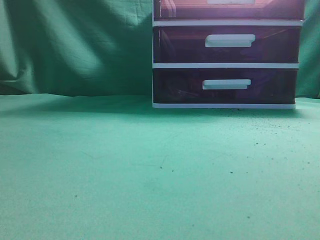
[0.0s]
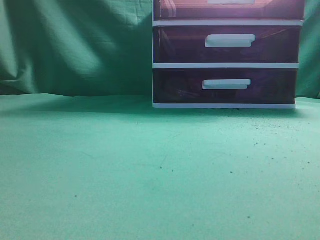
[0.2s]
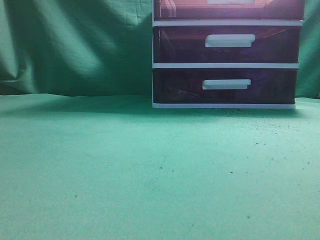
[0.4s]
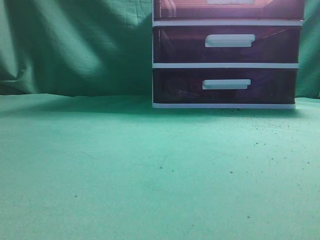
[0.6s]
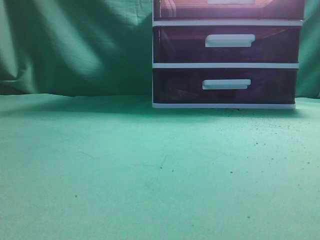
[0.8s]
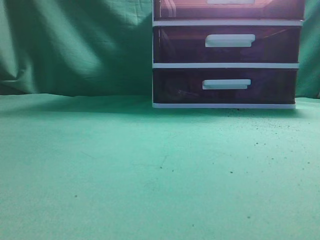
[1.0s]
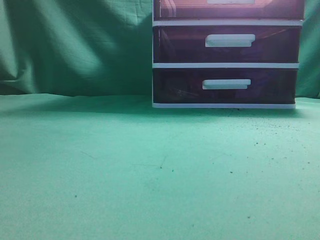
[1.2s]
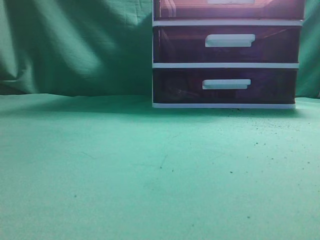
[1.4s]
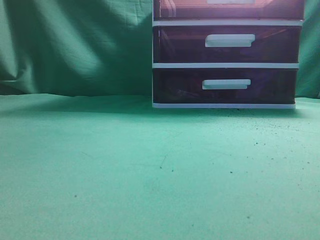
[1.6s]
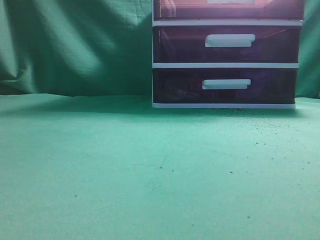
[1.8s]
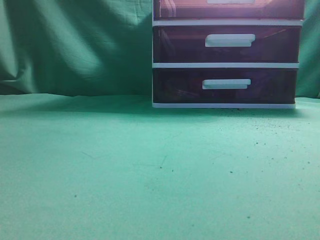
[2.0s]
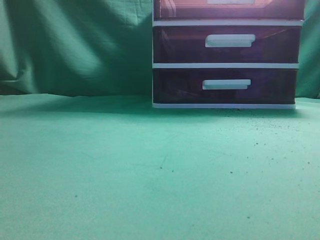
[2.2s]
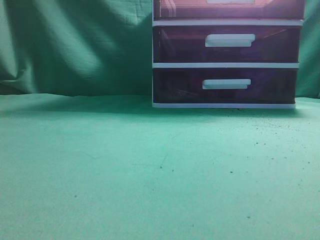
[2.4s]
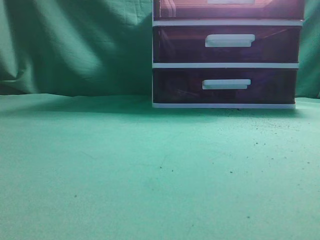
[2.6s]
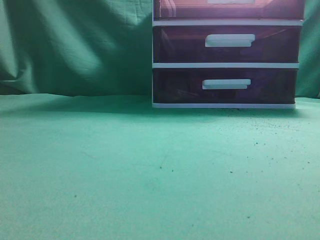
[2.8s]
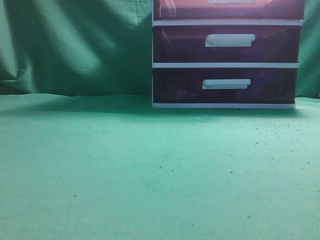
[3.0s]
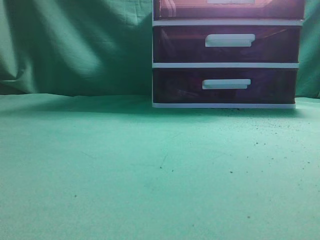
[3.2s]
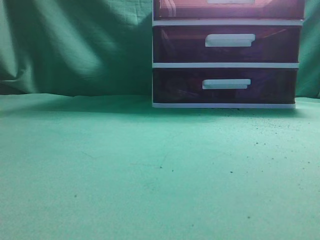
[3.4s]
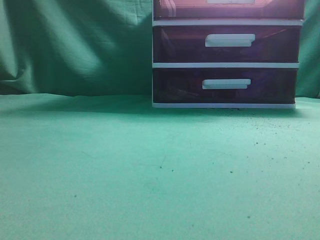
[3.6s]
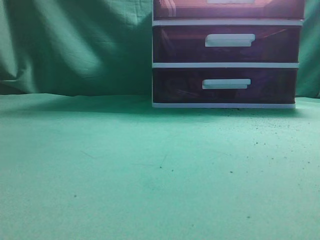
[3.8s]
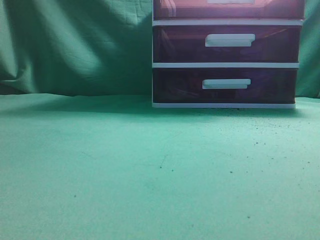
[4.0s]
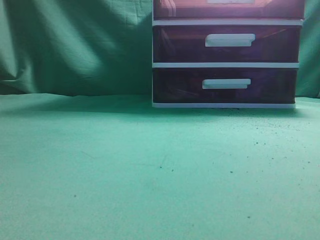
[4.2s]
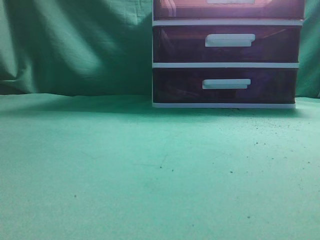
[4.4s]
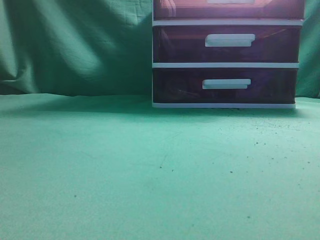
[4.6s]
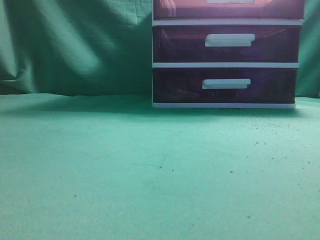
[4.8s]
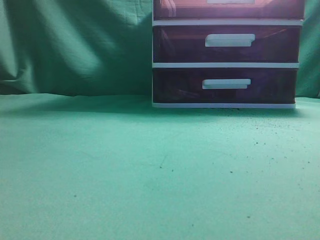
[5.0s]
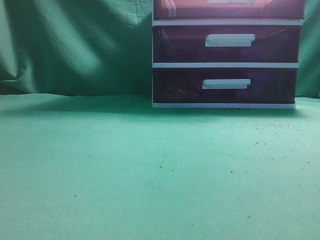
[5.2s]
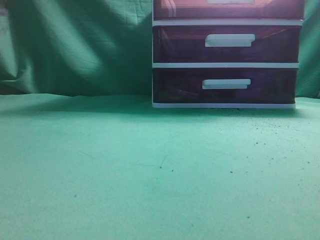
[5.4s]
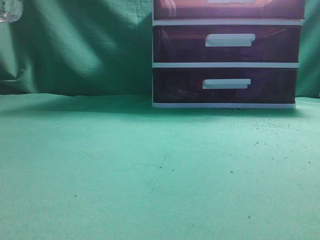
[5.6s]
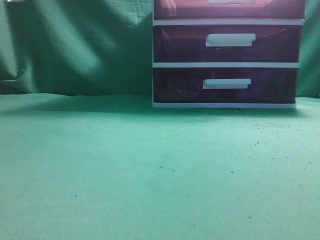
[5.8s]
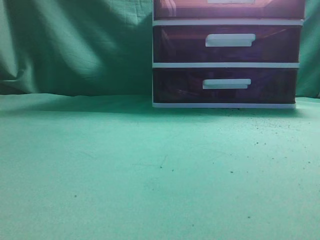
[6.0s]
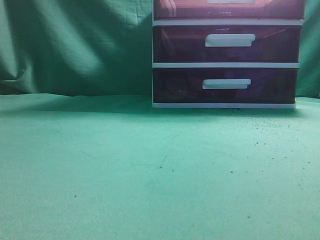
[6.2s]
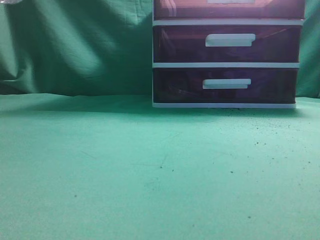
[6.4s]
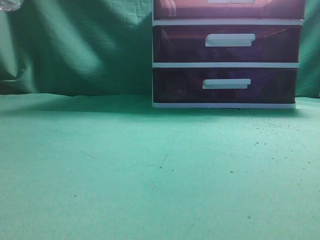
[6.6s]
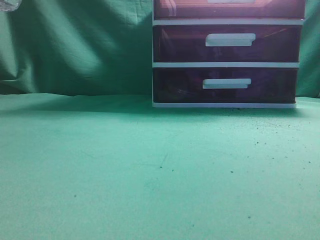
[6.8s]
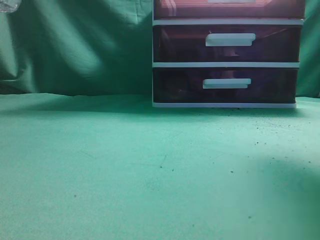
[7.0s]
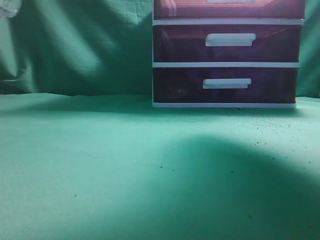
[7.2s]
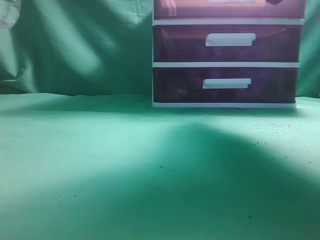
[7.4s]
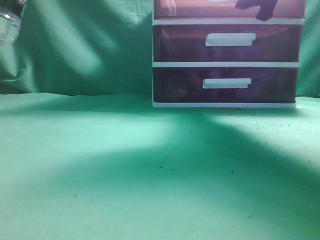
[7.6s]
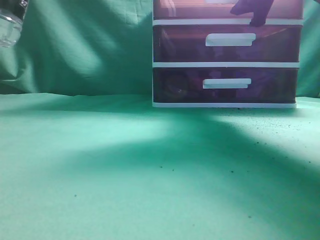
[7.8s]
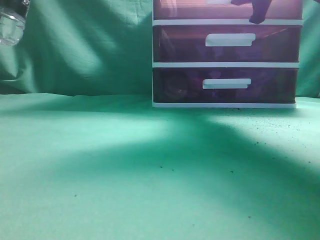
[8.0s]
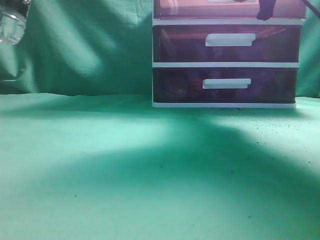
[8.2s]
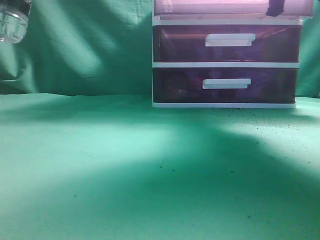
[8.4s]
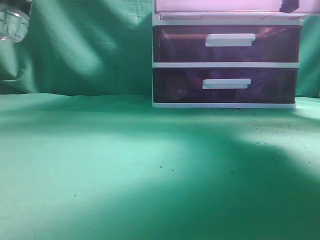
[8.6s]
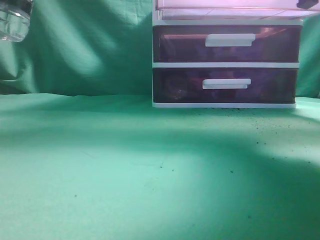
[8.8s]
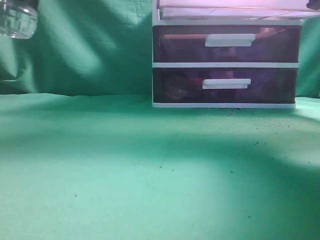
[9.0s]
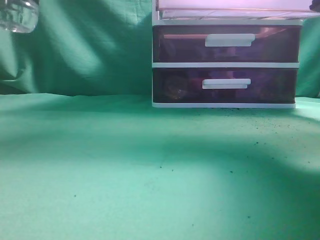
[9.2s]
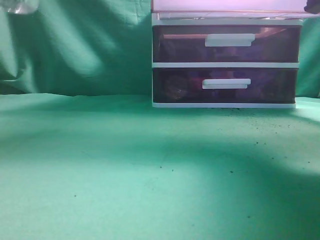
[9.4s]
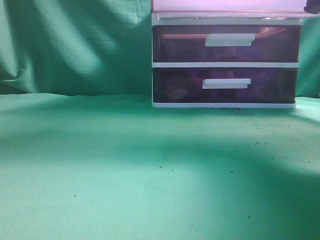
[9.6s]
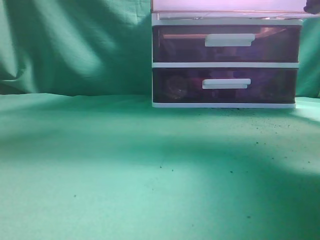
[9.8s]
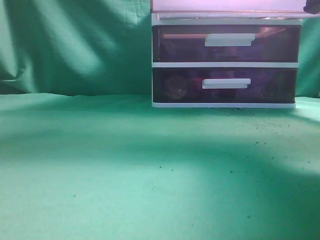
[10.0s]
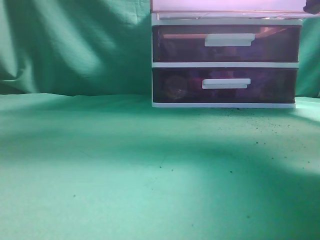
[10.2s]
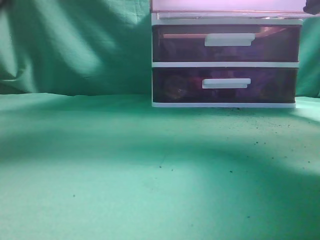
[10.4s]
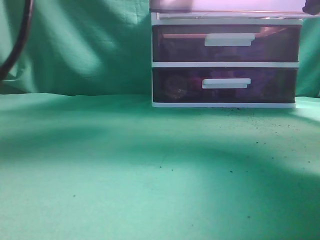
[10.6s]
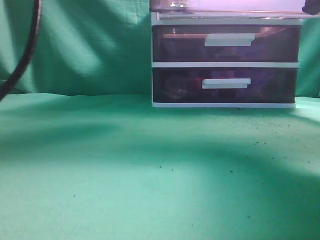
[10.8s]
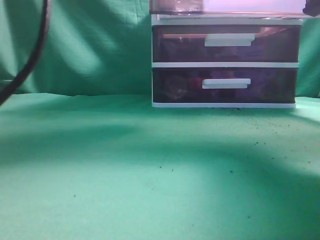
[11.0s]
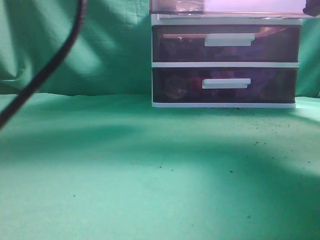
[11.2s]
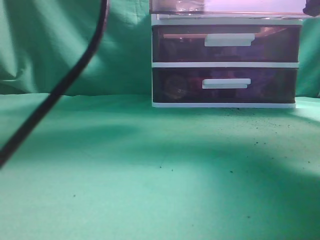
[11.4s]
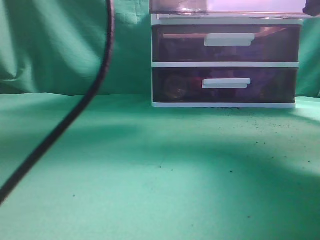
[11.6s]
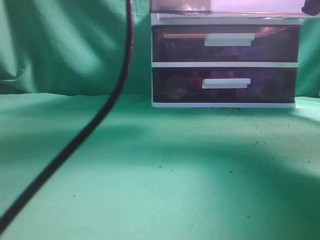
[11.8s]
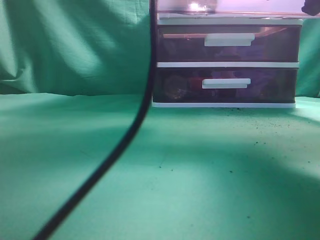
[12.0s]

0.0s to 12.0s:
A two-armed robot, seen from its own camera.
Task of the whole recording: place the water bottle into the drawer.
Step, 0.0s to 9.0s: Open the drawer.
6.0s to 7.6s: The left gripper shifts by roughly 5 cm. Meanwhile the right gripper heads forward, covering roughly 35 cm, and opens.
7.6s to 9.0s: The right gripper moves backward, about 10 cm, and closes its fingers.
9.0s to 10.4s: The left gripper shifts about 20 cm to the right, forward and upward.
10.4s to 12.0s: The left gripper shifts roughly 10 cm to the right and downward, and opens its fingers.

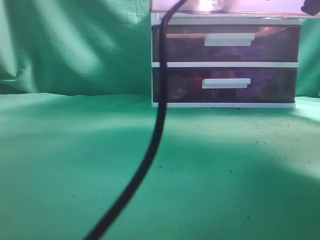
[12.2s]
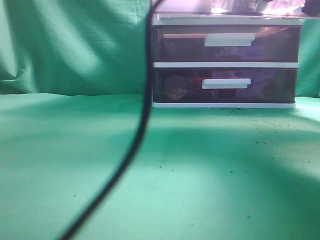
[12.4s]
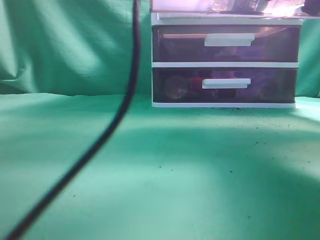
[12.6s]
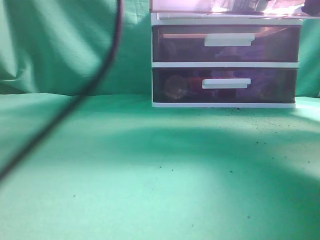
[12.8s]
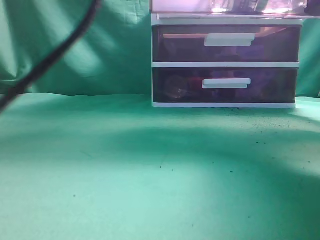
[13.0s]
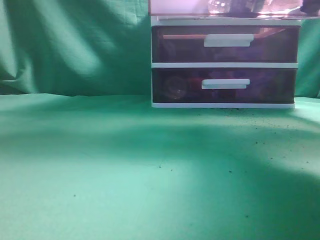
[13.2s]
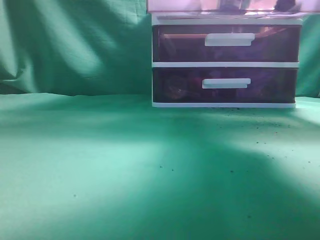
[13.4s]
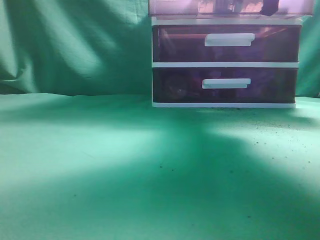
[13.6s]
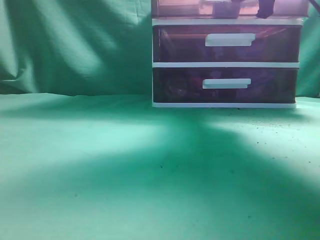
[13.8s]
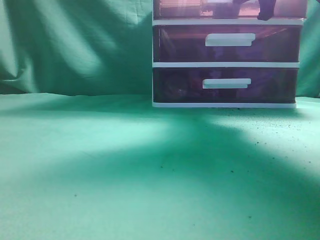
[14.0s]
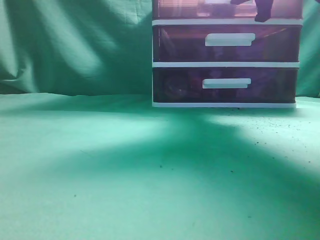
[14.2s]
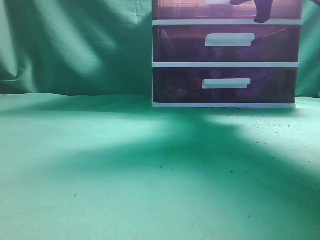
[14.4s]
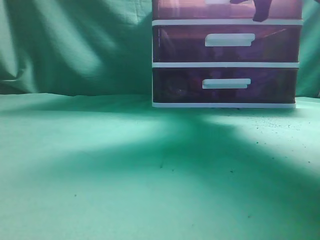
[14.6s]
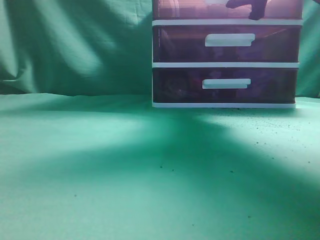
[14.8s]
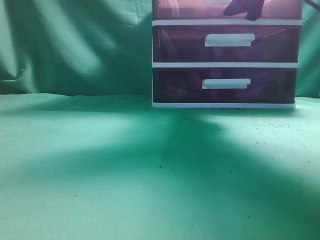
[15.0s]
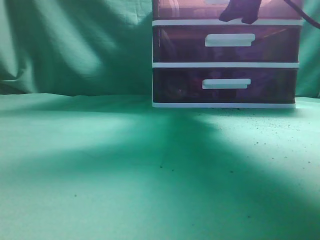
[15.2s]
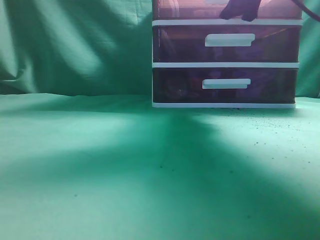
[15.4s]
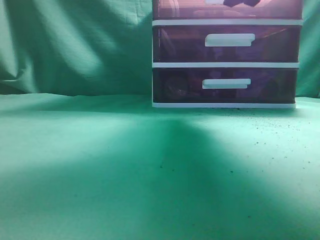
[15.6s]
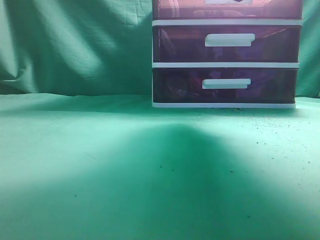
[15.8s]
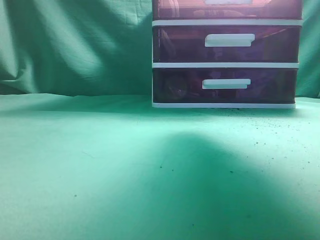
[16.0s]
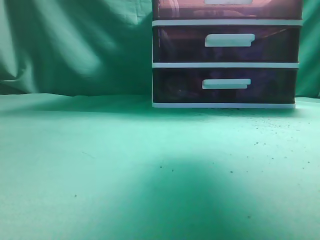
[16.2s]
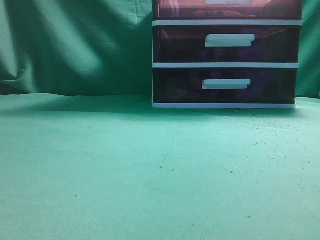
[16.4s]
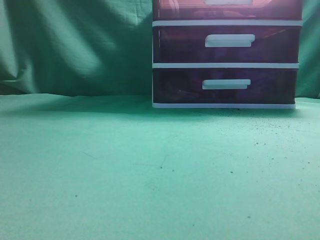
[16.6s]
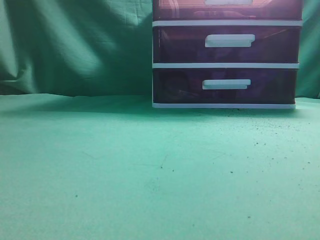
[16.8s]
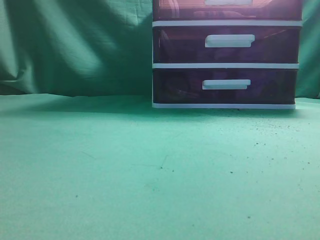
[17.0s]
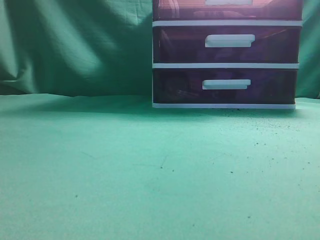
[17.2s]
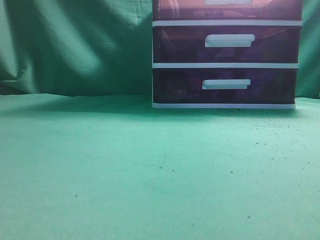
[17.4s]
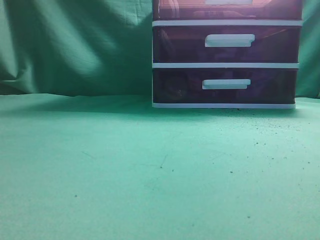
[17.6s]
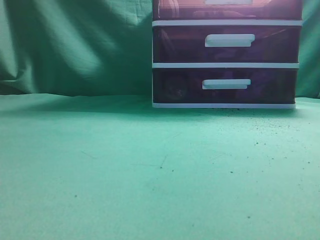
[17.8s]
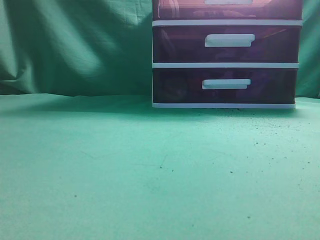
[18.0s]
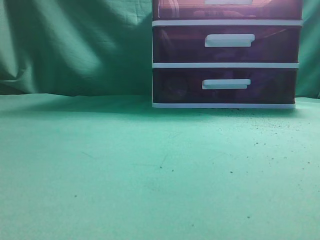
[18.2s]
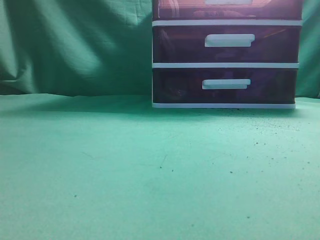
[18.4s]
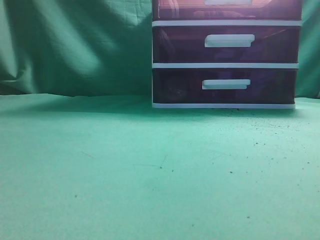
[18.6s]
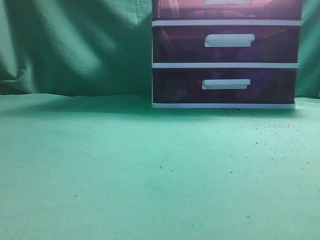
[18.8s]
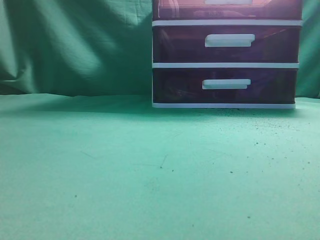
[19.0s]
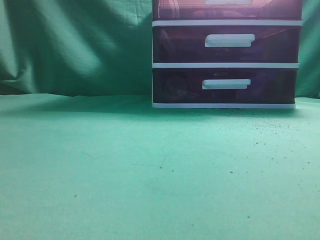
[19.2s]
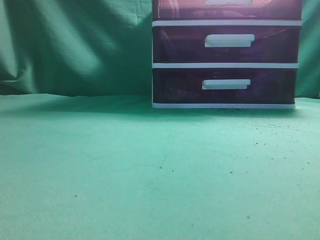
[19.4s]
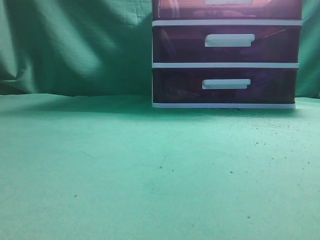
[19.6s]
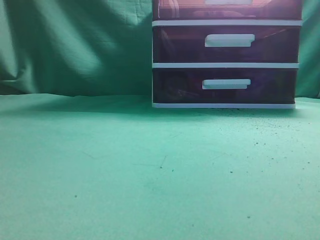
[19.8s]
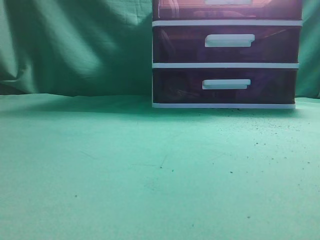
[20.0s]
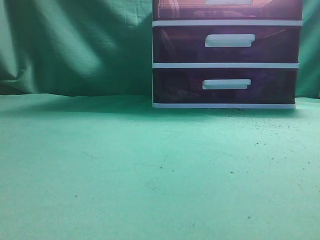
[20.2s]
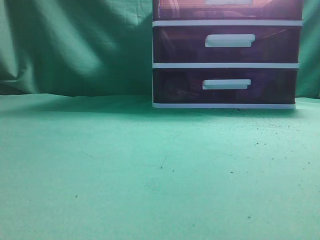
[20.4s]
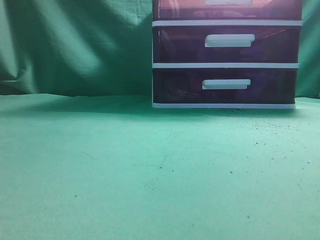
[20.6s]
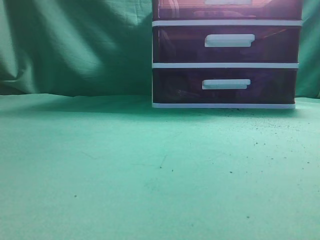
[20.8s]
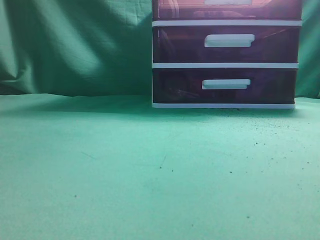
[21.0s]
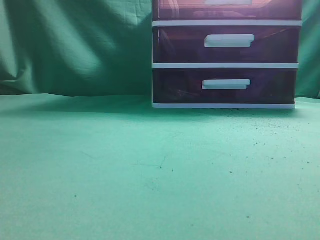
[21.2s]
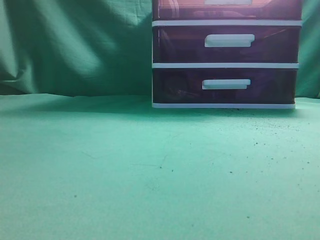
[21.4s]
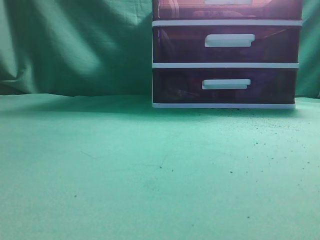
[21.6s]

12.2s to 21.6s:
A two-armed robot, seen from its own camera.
Task of the whole recording: place the water bottle into the drawer.
Step, 13.2s to 15.8s: Close the drawer.
12.2s to 13.8s: The right gripper heads forward, covering approximately 15 cm. The left gripper shifts some 35 cm to the left, backward and upward, and closes up.
13.8s to 15.4s: The right gripper opens its fingers.
15.4s to 17.0s: The left gripper is displaced backward, downward and to the left by approximately 25 cm. The right gripper goes some 35 cm backward, and closes.

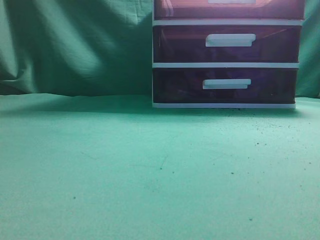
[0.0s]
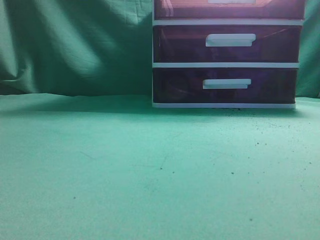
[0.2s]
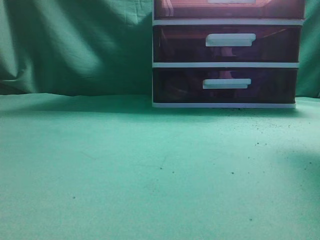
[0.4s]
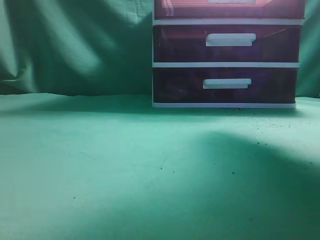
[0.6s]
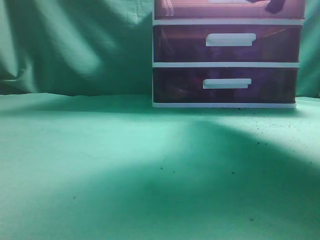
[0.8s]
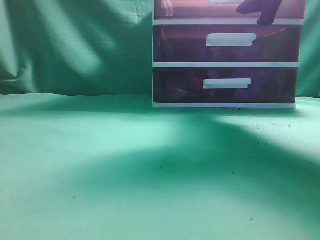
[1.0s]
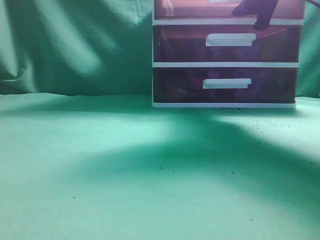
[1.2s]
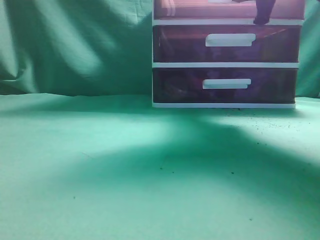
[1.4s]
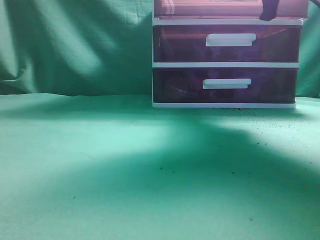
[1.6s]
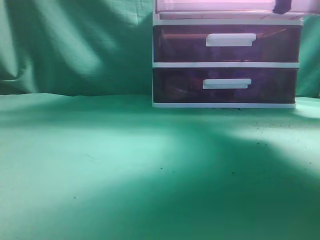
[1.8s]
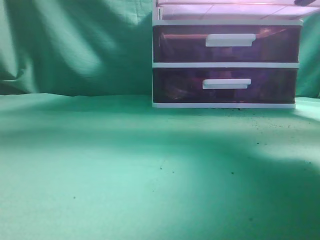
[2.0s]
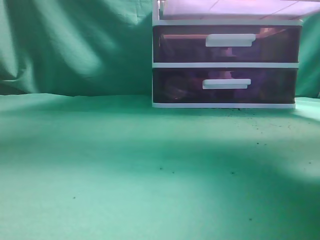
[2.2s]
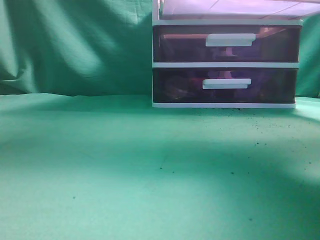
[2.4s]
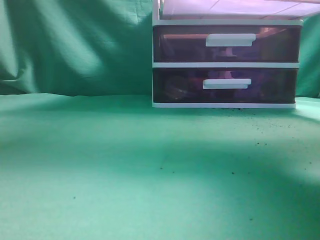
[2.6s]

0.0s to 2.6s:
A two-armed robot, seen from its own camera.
Task of the whole recording: place the water bottle into the drawer.
Step, 0.0s to 2.2s: Open the drawer.
0.0s to 1.2s: The right gripper moves forward, about 25 cm, and opens up.
1.2s to 2.6s: The right gripper shifts about 15 cm backward, and closes.
